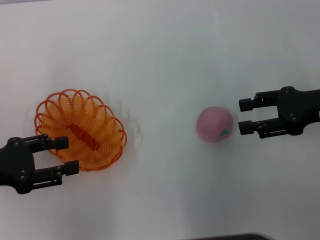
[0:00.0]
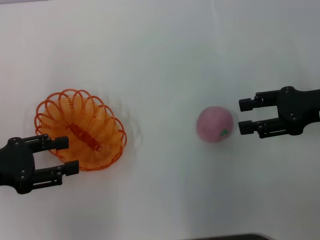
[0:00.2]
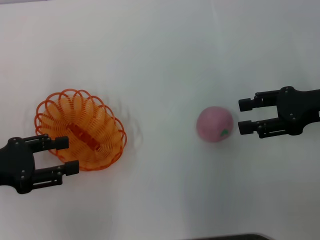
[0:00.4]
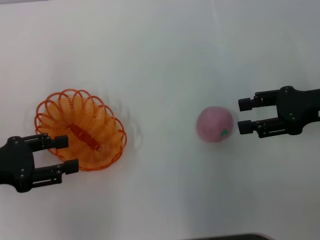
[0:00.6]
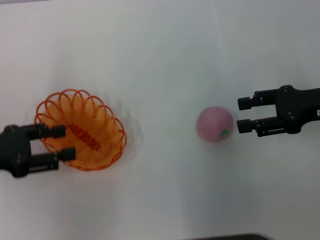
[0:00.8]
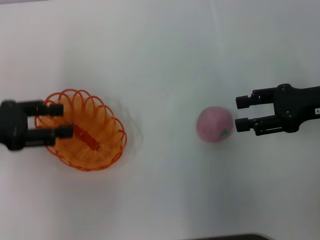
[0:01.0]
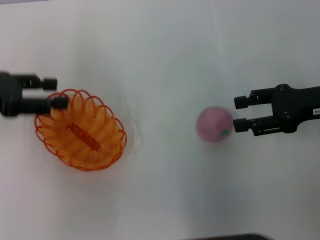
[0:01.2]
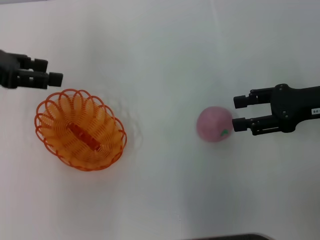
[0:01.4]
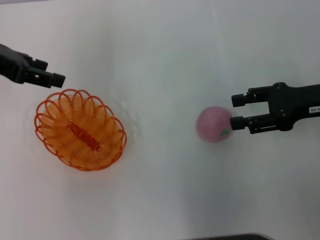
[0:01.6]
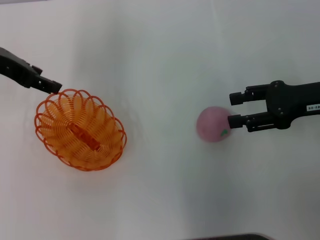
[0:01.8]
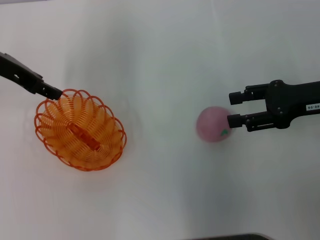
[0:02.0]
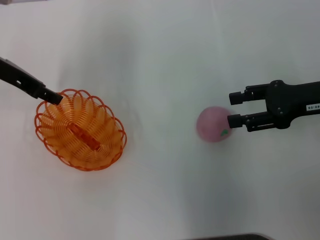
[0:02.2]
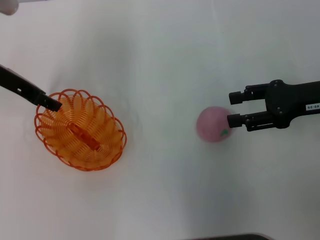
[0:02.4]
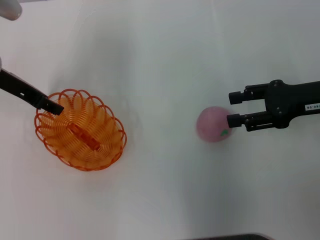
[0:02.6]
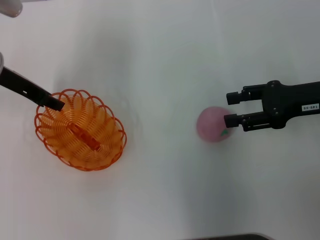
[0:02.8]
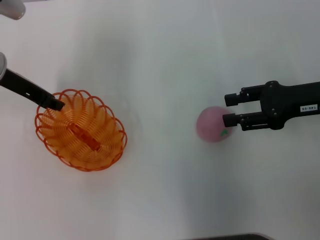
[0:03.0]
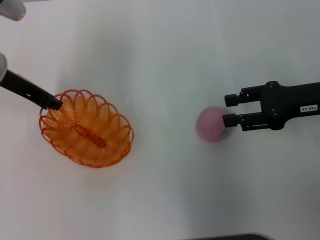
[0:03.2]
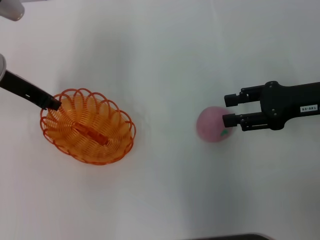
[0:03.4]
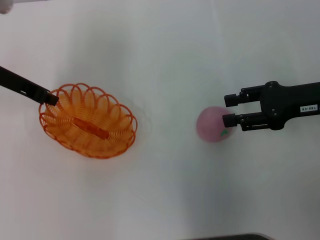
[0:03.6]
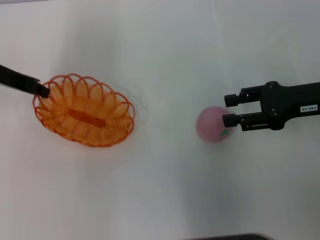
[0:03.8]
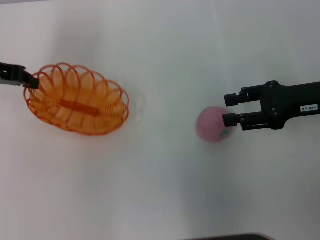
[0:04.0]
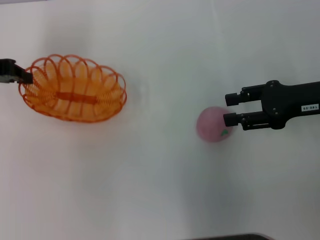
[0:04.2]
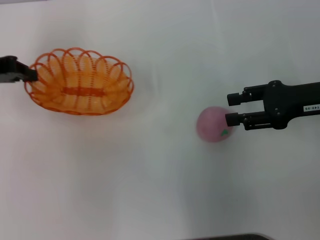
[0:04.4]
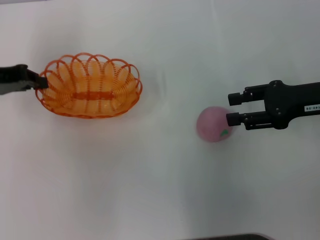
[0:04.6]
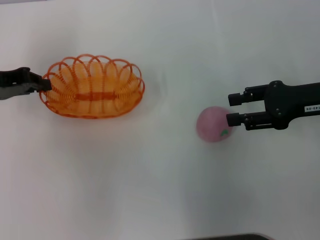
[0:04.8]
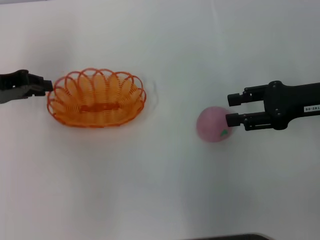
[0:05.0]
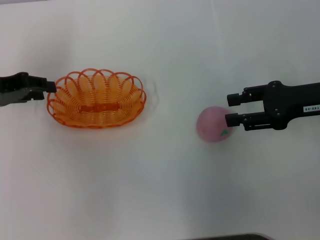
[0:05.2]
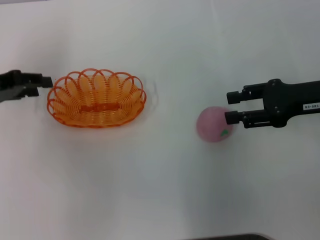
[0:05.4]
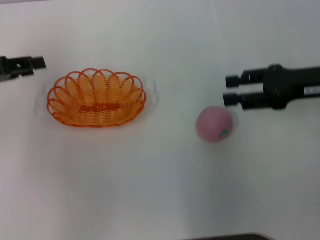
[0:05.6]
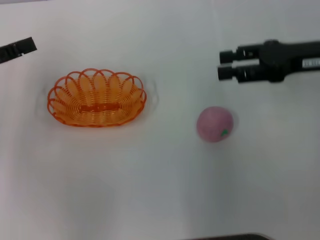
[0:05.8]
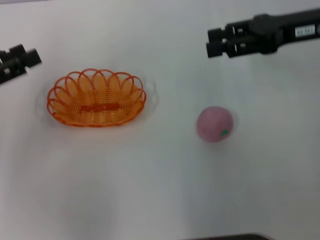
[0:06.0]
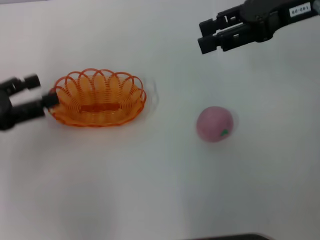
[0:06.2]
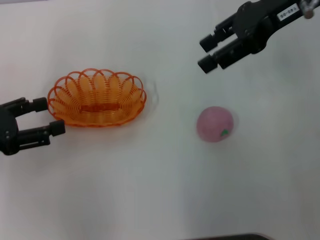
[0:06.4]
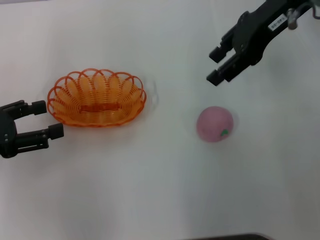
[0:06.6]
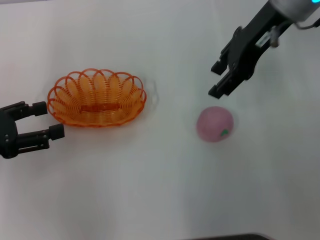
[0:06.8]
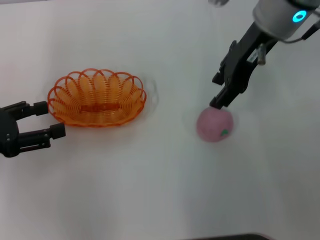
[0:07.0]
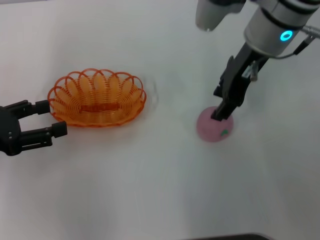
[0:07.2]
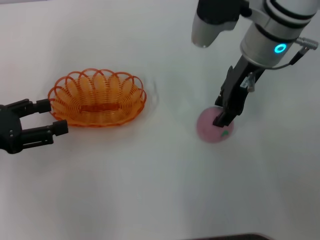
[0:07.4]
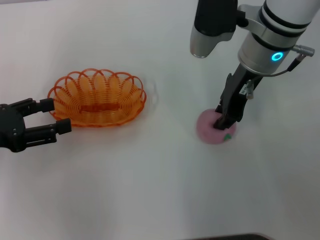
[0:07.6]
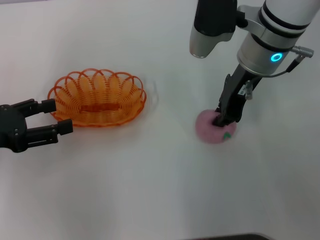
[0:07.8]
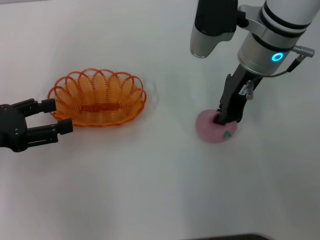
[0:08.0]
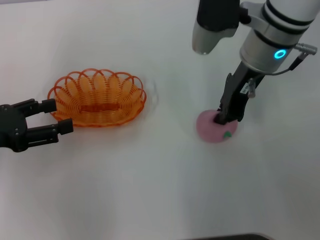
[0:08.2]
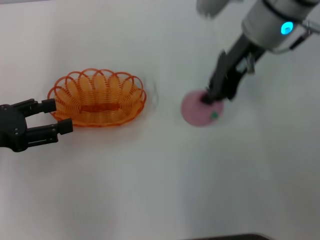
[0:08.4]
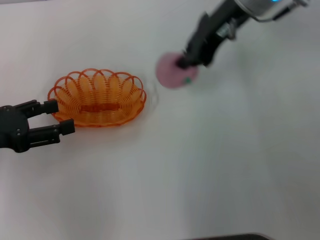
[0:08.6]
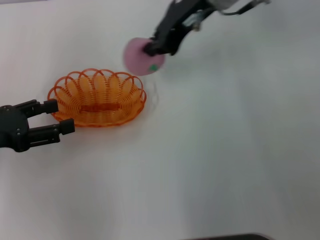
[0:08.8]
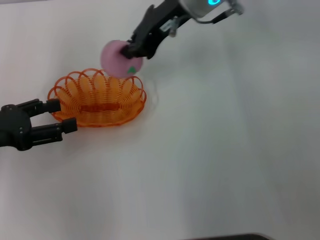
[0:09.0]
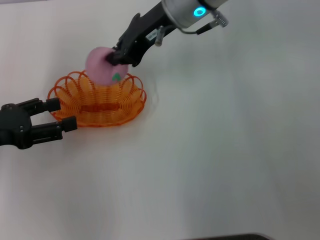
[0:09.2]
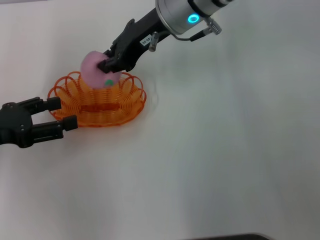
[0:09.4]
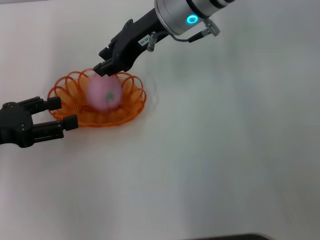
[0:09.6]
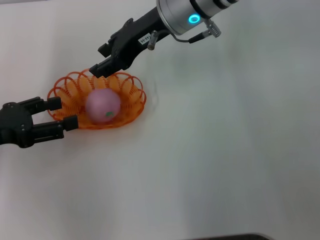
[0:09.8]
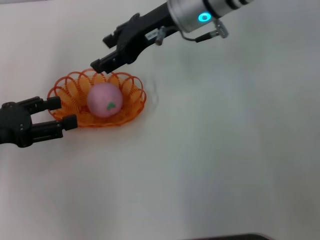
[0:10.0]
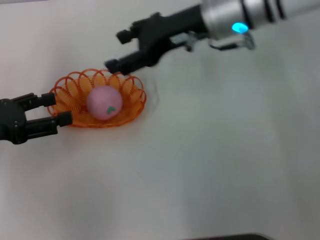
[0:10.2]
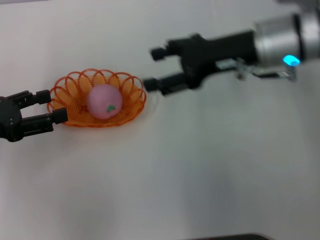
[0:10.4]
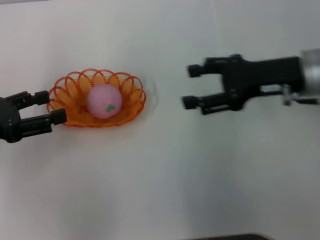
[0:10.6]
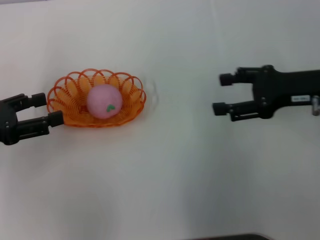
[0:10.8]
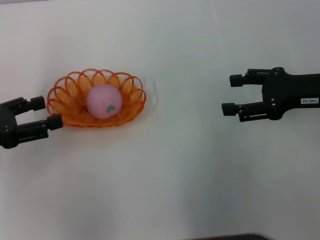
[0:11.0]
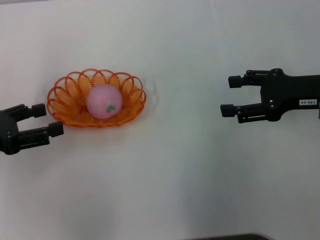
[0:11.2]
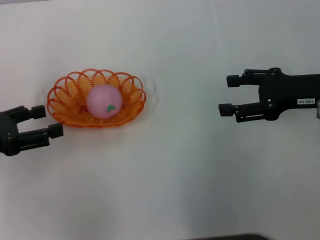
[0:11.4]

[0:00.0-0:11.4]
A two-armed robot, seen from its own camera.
Step, 0:00.0 to 0:03.4: Pick up the basket with the left gripper.
Step, 0:03.6 to 0:05.2: Place the basket in the center of view with the left gripper.
Step, 0:05.4 to 0:08.4: Pick up the peach with the right gripper.
Step, 0:08.6 to 0:09.8: Place the peach into the basket with the right gripper.
0:00.0 to 0:01.4: The left gripper goes roughly 15 cm forward and upward.
0:01.4 to 0:02.8: The left gripper shifts approximately 10 cm to the right and downward.
0:02.8 to 0:04.2: The left gripper travels to the left by approximately 5 cm, and closes its fingers.
0:04.2 to 0:05.6: The left gripper shifts approximately 5 cm backward, and opens its fingers.
0:05.6 to 0:07.2: The left gripper heads backward, covering some 10 cm, and opens up, while the right gripper is displaced to the left, forward and upward by approximately 20 cm.
0:07.2 to 0:08.6: The right gripper closes up.
0:08.6 to 0:10.0: The right gripper travels to the left by about 5 cm, and opens up.
0:10.0 to 0:11.4: The right gripper is displaced to the right and backward by roughly 25 cm.
